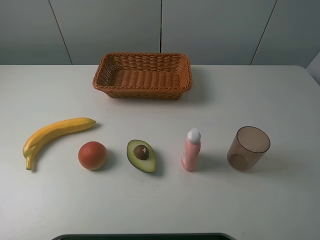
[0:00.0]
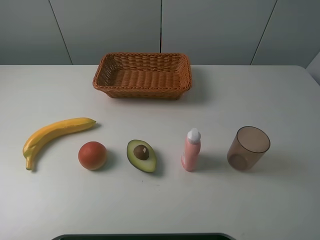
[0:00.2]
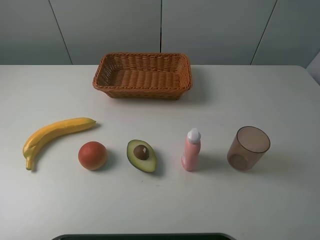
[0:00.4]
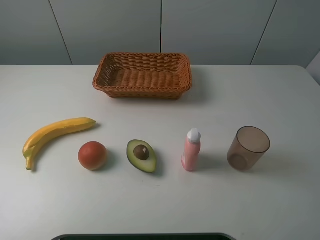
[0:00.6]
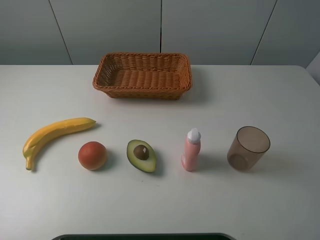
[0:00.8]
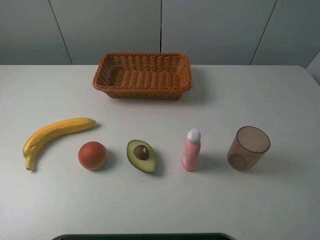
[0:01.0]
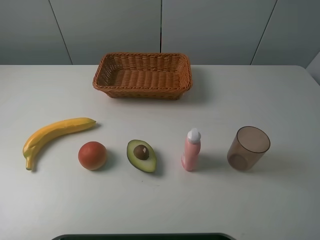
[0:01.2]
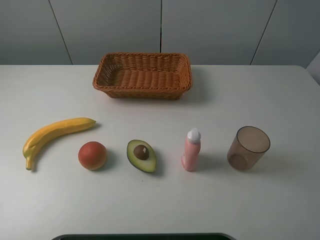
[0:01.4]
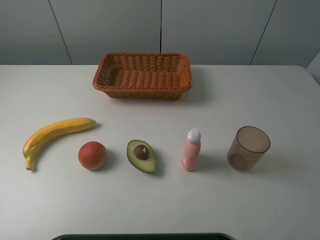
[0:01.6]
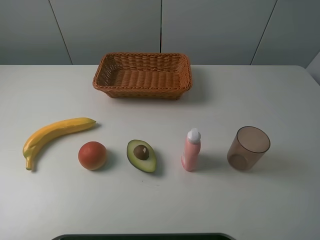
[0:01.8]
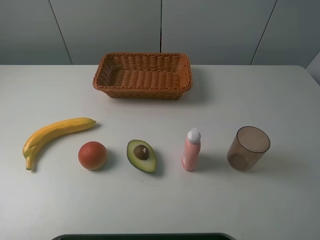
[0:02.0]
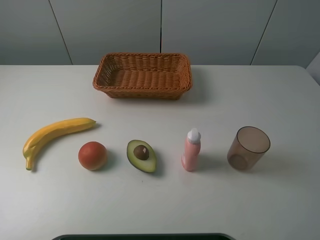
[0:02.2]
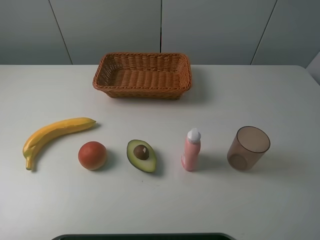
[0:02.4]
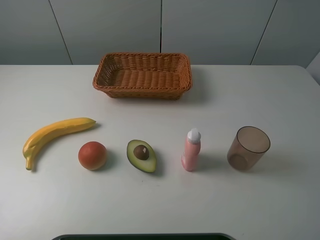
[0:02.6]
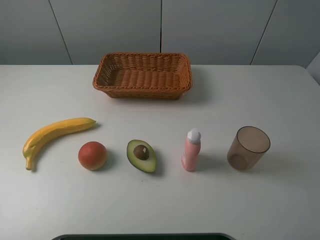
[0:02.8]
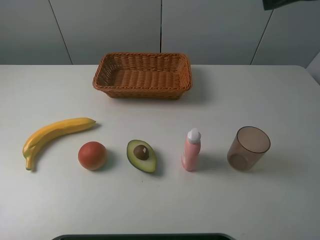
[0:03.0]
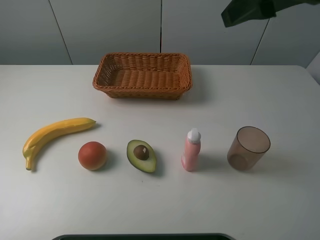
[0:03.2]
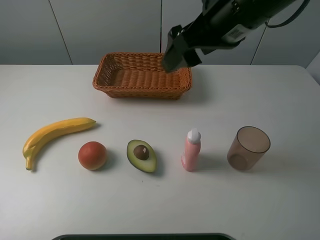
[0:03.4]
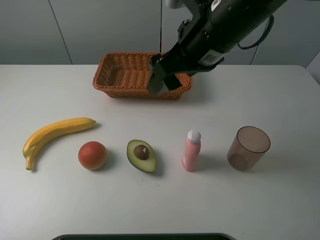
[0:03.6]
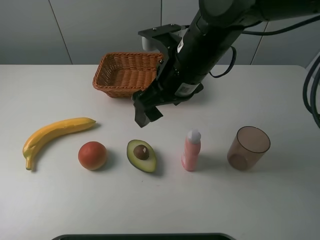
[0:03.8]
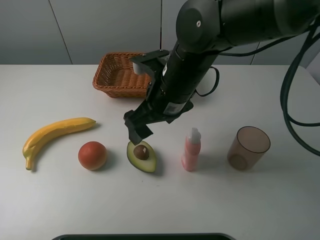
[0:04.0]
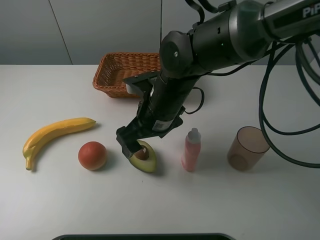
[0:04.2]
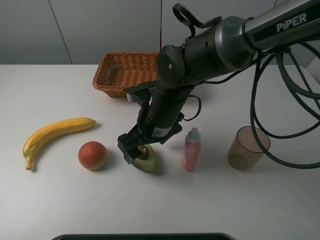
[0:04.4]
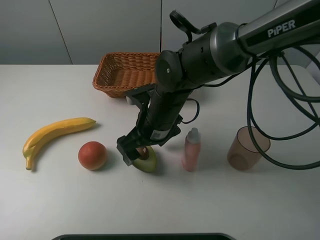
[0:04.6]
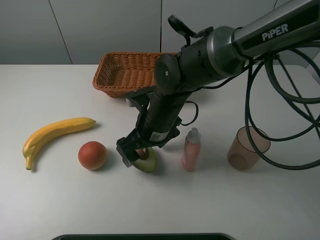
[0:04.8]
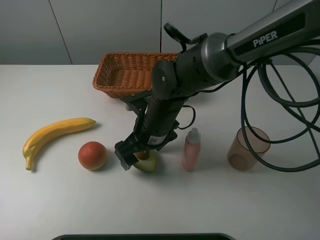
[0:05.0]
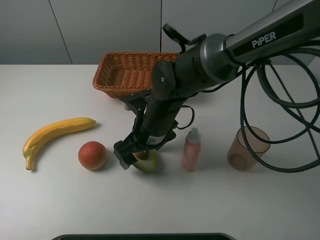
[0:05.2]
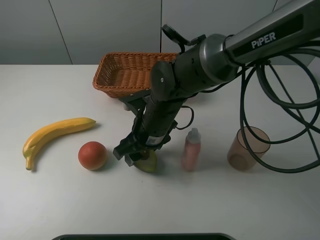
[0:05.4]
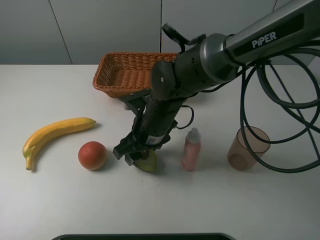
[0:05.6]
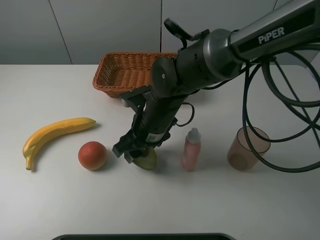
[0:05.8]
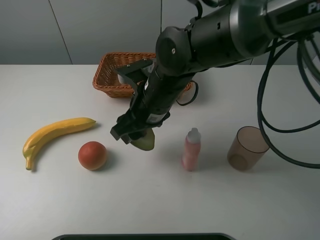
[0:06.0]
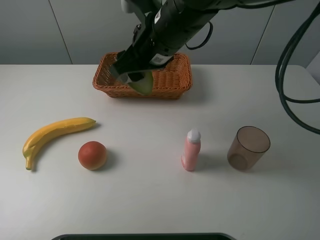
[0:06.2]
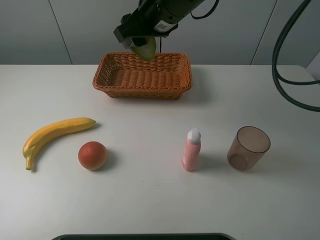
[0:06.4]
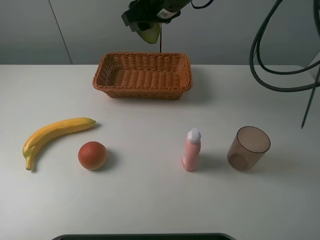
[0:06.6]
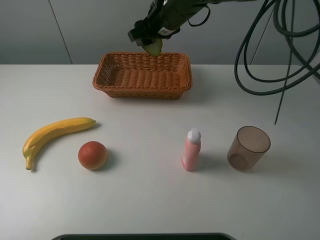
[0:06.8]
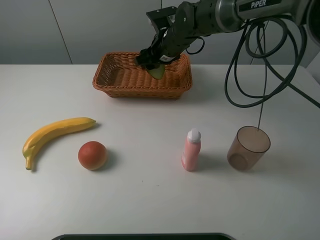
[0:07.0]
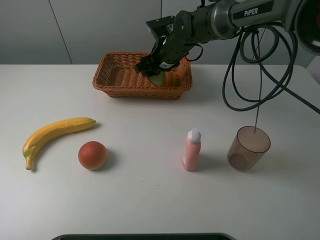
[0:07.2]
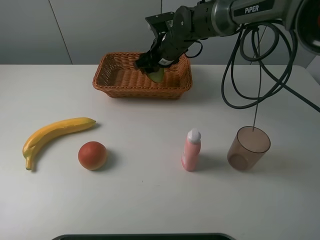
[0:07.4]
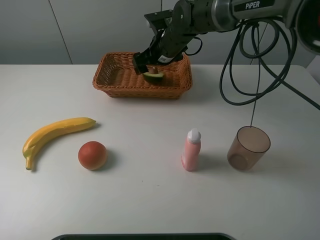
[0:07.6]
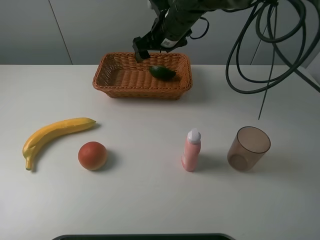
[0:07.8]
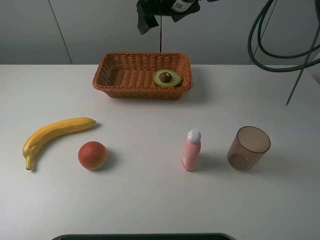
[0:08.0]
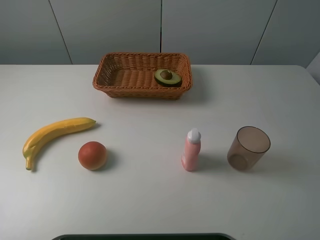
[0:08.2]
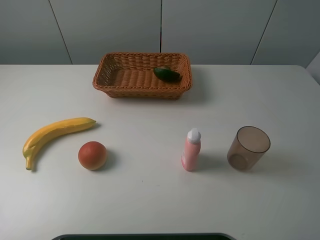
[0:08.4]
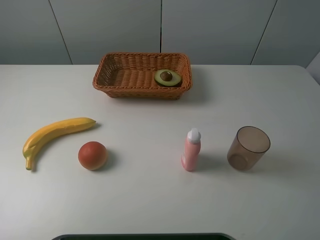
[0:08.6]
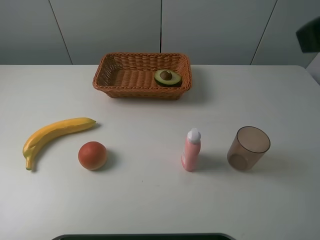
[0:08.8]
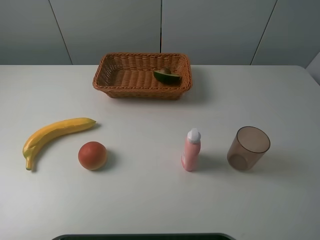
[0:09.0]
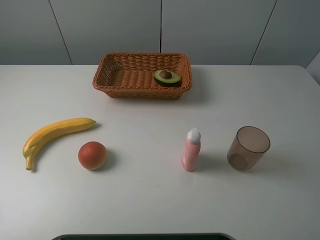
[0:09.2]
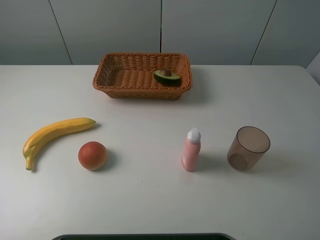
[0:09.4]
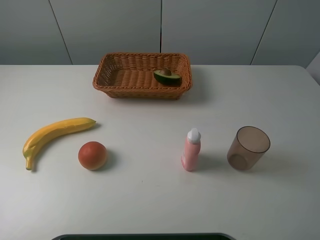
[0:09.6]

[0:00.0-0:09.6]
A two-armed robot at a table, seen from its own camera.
Task of the whole recording: randomly pick up an item from the table and put it in the basket.
Step, 0:00.0 to 0:05.6: Grasp the avocado with the right gripper.
Step, 0:05.8 to 0:08.0: Place the avocado into the basket with the right gripper.
0:00.0 to 0:01.6: The two grippers keep their place.
0:01.6 to 0:03.2: The right gripper heads forward and to the left, covering some 25 cm.
0:03.2 to 0:04.8: The right gripper moves downward and to the left, approximately 30 cm.
0:04.8 to 0:06.4: The right gripper travels upward and forward by approximately 20 cm, and closes up.
0:06.4 to 0:08.0: The right gripper heads forward, covering roughly 5 cm, moves approximately 15 cm downward and comes back, and opens up.
0:08.0 to 0:09.6: The right gripper travels backward and to the right by roughly 50 cm.

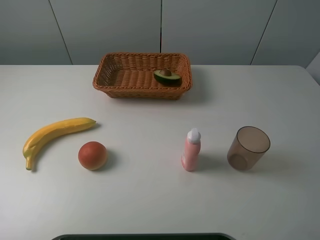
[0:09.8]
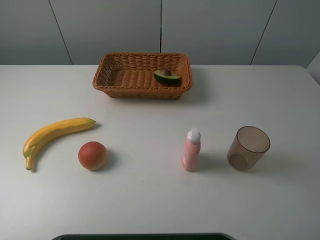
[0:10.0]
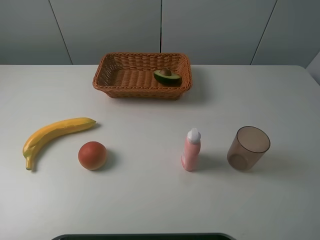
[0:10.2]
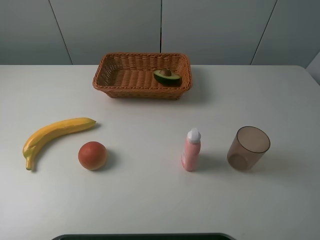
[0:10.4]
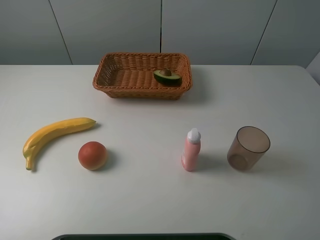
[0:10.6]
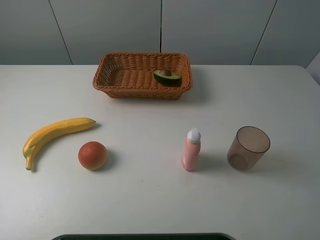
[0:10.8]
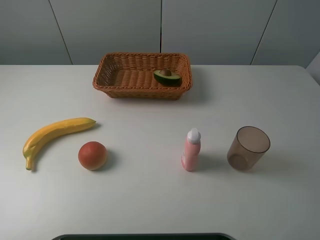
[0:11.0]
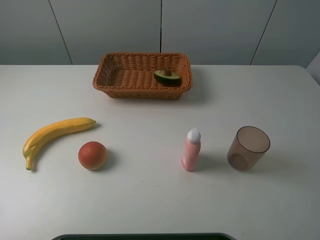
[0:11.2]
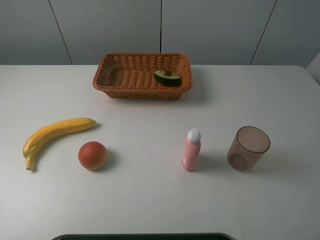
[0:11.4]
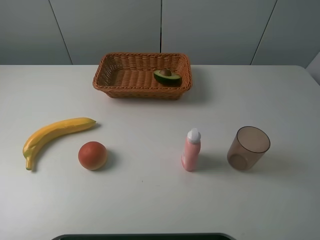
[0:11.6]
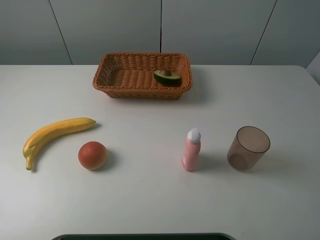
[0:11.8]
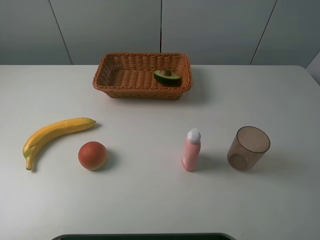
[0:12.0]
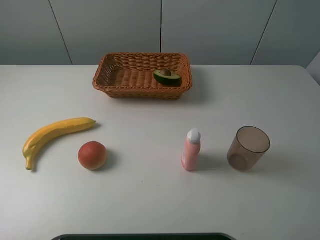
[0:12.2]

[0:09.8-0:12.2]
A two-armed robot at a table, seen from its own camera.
Task of the whole recording: randomly pick up an item from the table and put it in the basket.
0:11.0 to 0:12.2: Both grippers stay put.

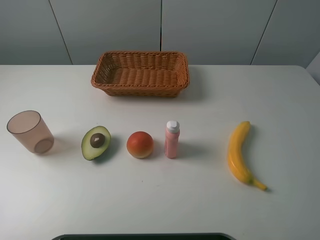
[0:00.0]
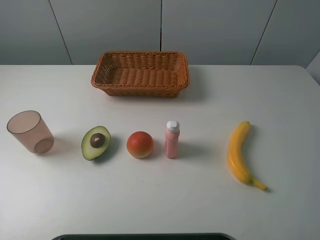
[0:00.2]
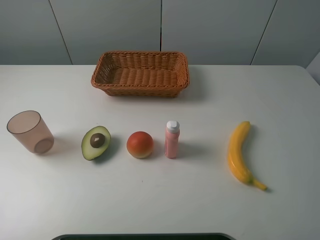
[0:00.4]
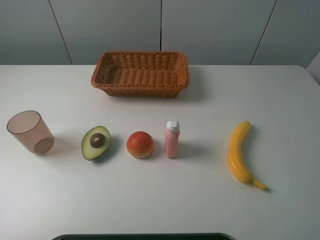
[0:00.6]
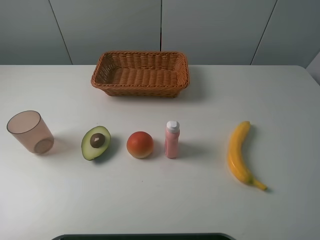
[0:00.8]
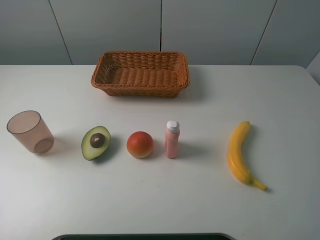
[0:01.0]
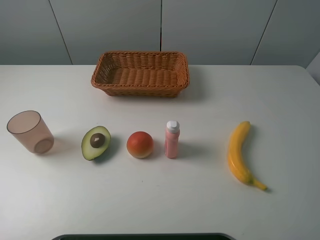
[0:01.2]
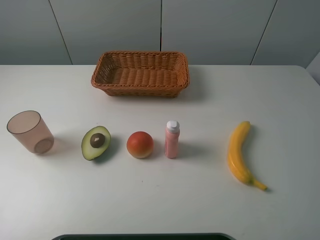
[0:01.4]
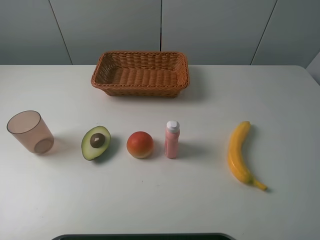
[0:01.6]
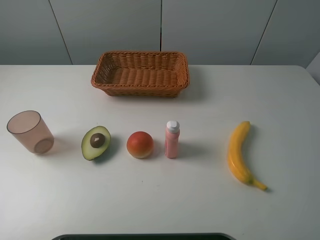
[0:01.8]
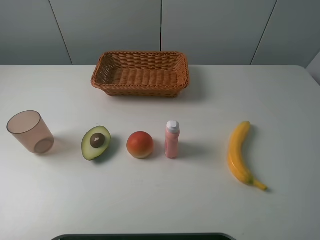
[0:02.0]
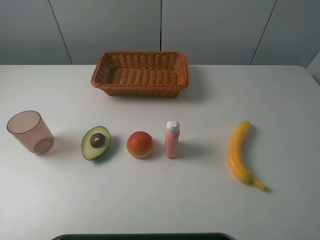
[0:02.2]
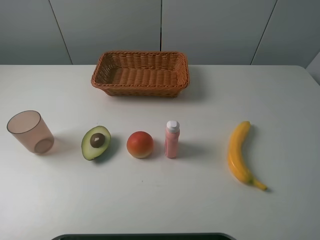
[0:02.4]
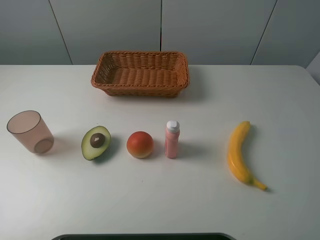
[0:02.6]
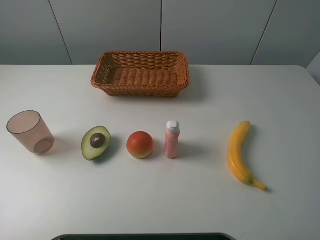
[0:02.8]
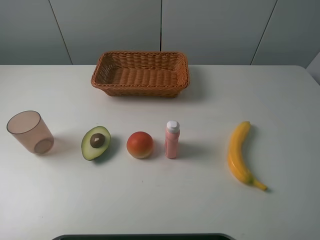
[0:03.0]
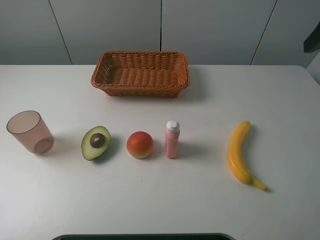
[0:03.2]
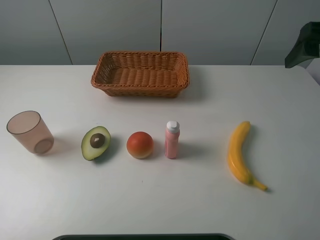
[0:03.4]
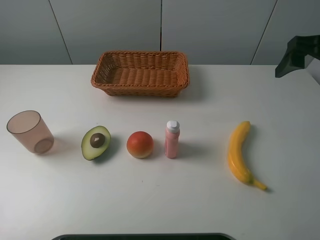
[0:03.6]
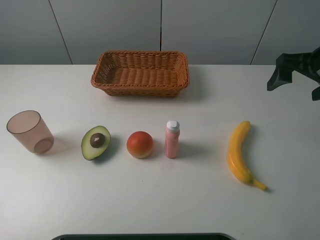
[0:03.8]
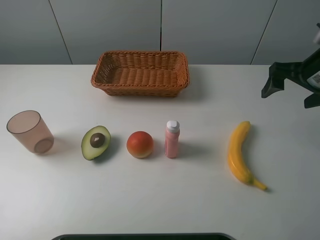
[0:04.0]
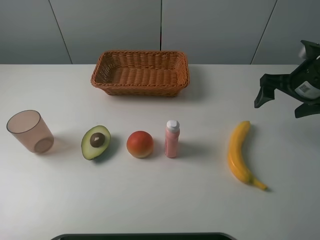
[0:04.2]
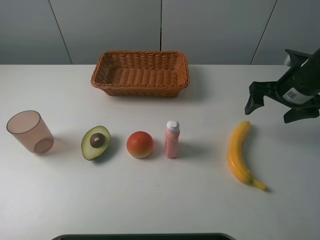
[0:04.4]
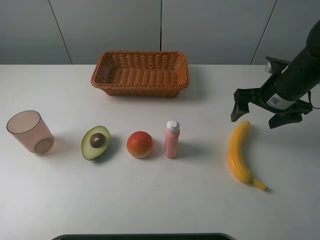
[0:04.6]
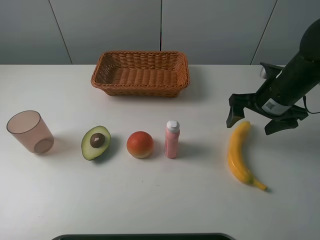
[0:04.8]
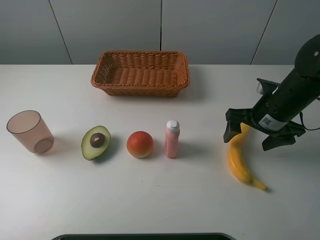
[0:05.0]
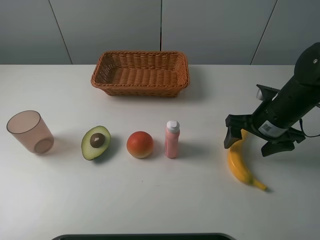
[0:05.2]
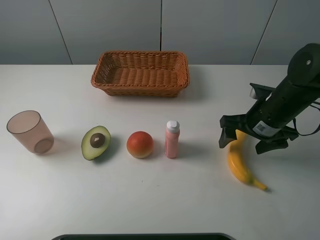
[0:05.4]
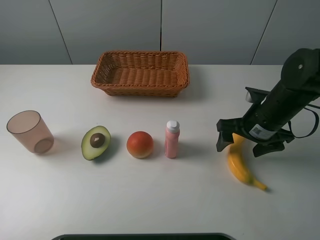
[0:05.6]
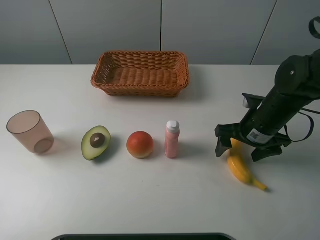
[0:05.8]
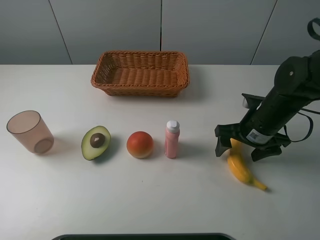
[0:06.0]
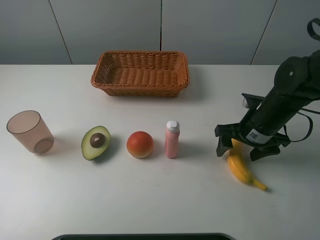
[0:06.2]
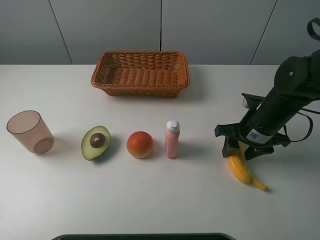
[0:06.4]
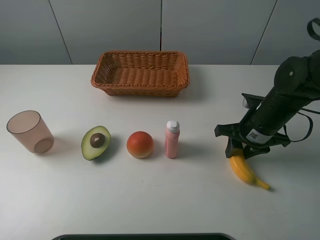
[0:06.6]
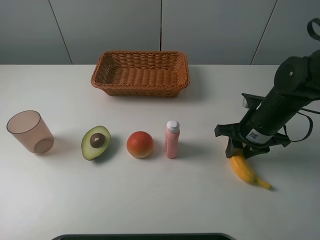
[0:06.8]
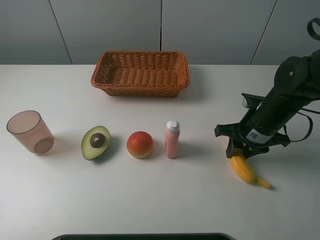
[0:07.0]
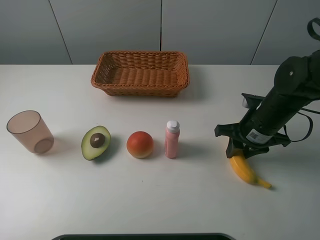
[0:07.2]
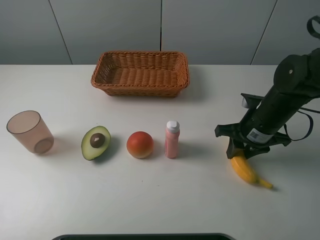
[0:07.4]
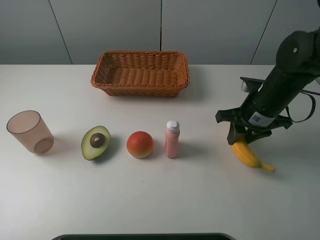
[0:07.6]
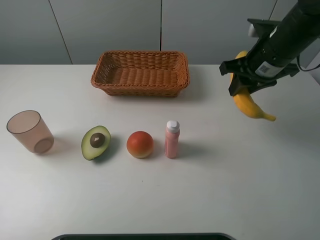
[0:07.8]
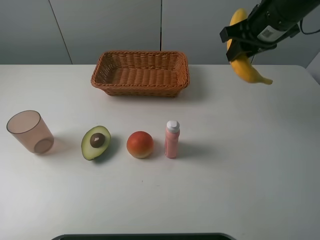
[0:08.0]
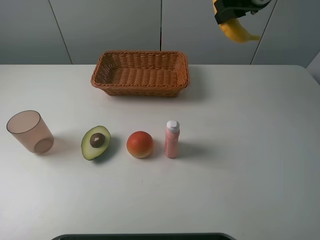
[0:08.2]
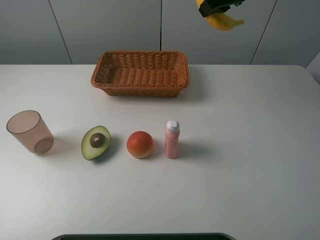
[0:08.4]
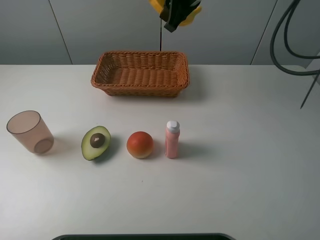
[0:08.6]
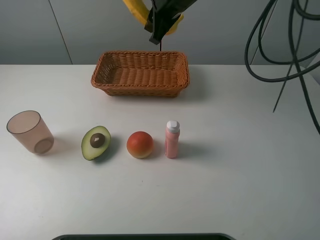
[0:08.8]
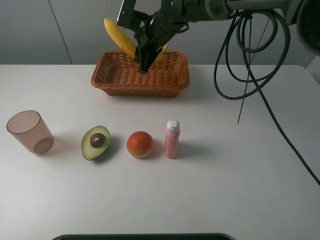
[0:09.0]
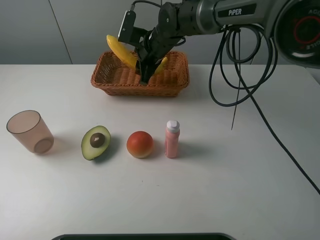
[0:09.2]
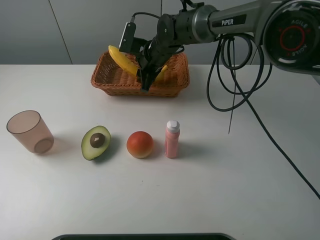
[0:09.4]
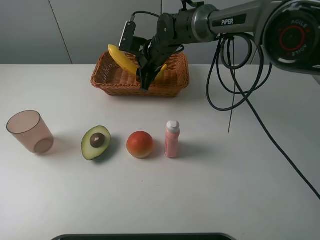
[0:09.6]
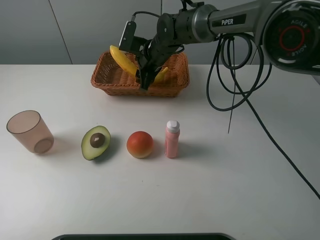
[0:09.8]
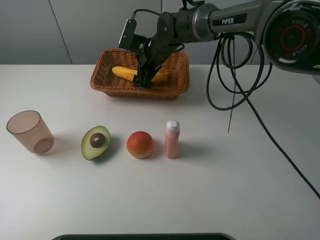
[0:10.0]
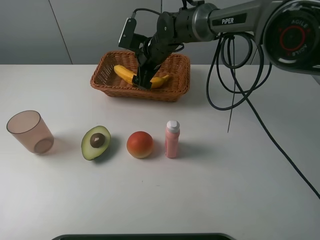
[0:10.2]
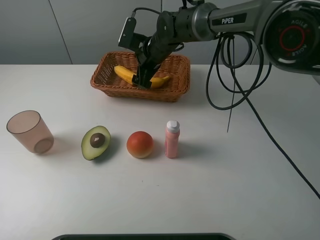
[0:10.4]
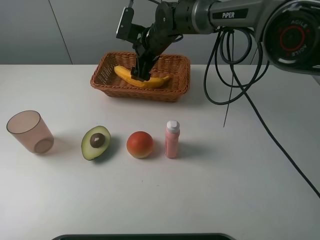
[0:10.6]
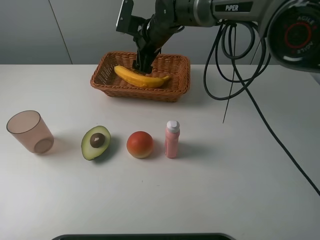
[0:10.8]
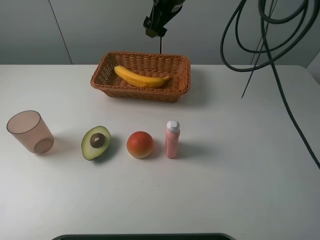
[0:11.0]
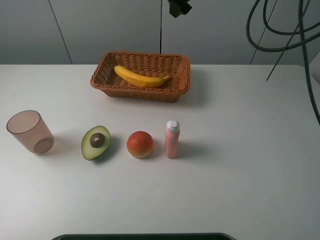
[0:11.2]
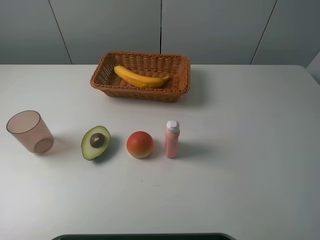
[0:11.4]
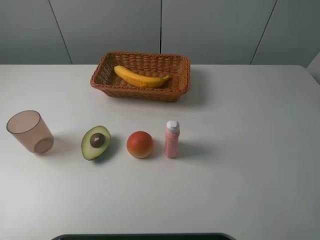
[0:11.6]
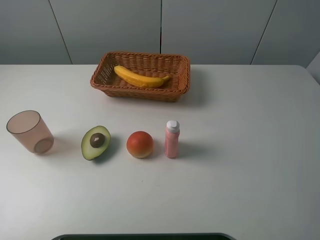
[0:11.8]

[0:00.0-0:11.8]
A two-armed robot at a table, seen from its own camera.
Task of the whole recording: randomly pick up an item from the table and put it in the basket.
Step, 0:00.0 to 0:07.2: Grasp the banana with the right gripper.
Step, 0:07.4 to 0:10.8: Place the banana into the basket with the right gripper.
0:00.0 to 0:01.4: Both grippers stay about where they are.
0:03.0 to 0:04.4: The right gripper is displaced downward and forward by some 20 cm.
0:04.4 to 0:06.0: The right gripper is displaced downward and to the left by about 10 cm.
0:06.0 to 0:07.4: The right gripper closes.
0:07.4 to 0:08.8: The right gripper shifts roughly 30 cm to the left, forward and upward.
0:08.8 to 0:10.4: The right gripper heads downward, covering some 10 cm, and opens up.
0:10.4 to 0:11.8: The right gripper is displaced to the right and upward by roughly 40 cm.
